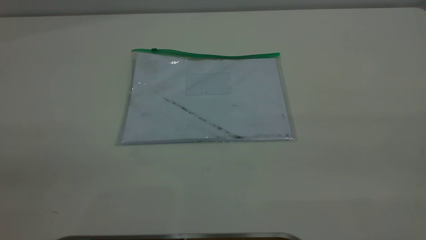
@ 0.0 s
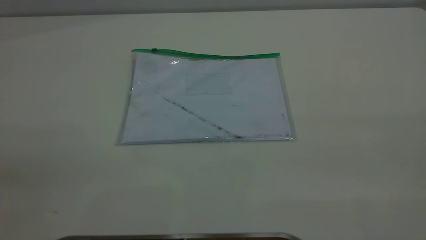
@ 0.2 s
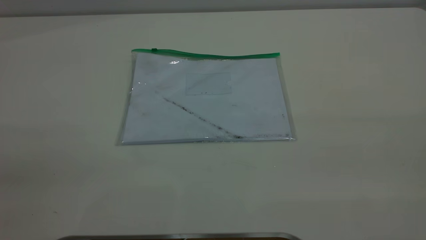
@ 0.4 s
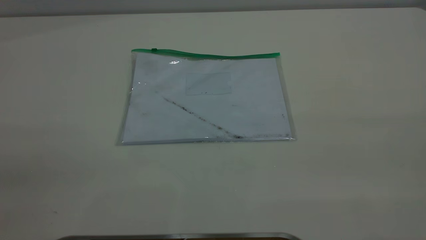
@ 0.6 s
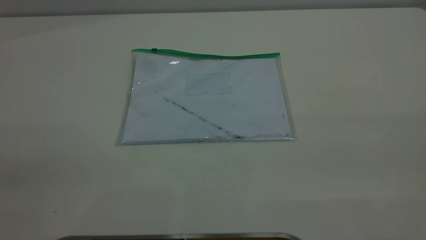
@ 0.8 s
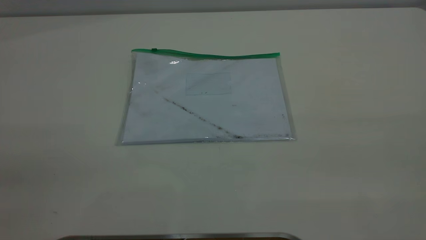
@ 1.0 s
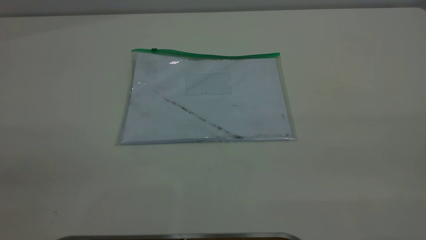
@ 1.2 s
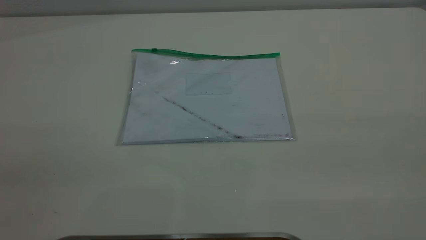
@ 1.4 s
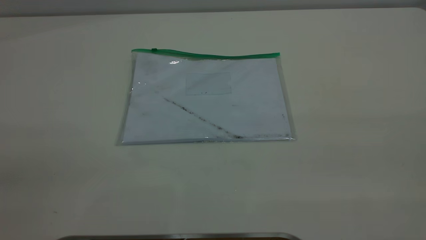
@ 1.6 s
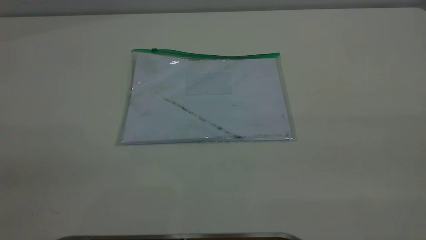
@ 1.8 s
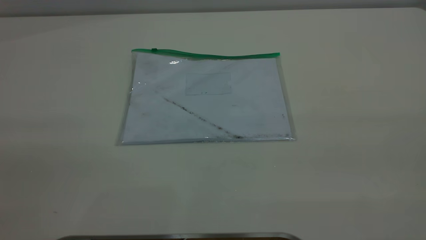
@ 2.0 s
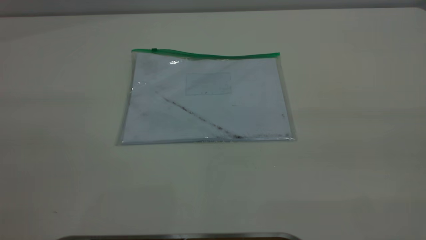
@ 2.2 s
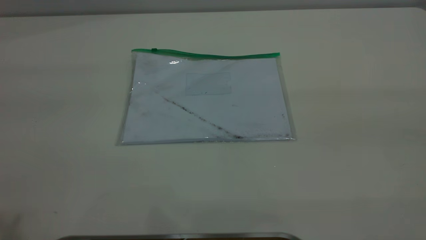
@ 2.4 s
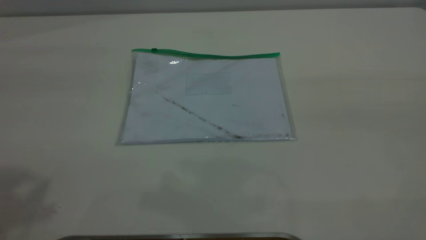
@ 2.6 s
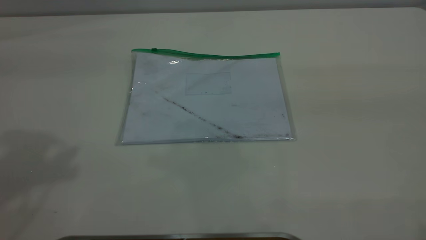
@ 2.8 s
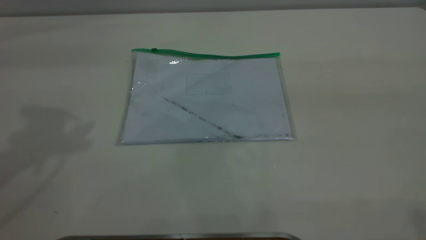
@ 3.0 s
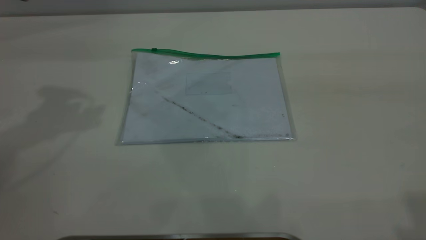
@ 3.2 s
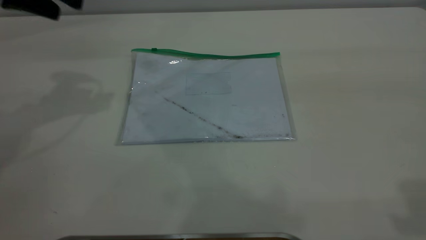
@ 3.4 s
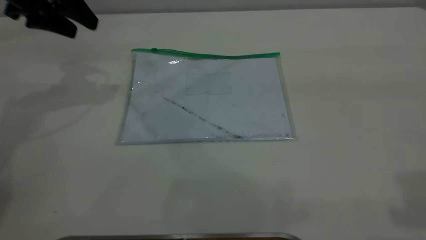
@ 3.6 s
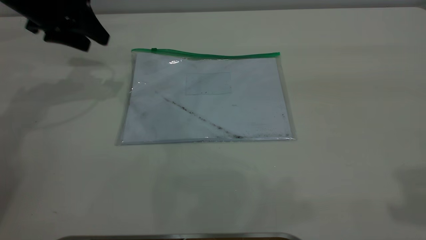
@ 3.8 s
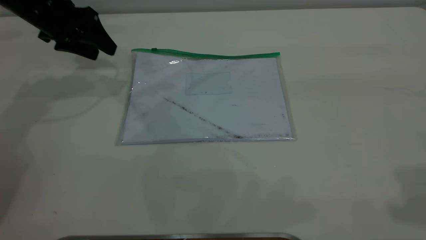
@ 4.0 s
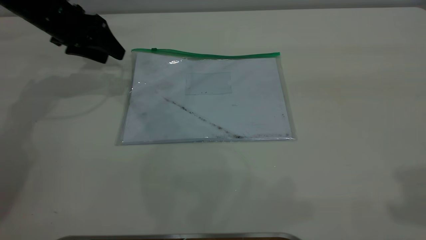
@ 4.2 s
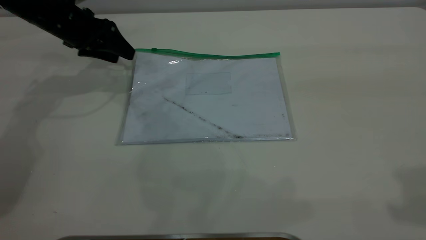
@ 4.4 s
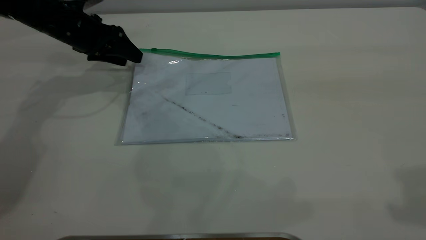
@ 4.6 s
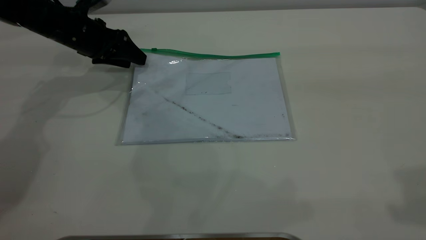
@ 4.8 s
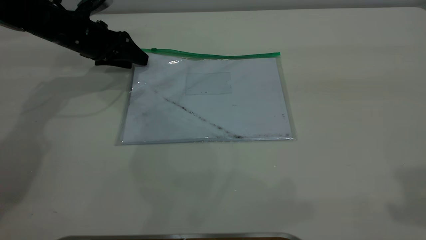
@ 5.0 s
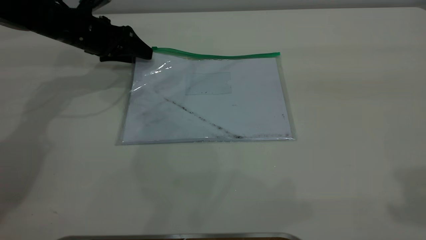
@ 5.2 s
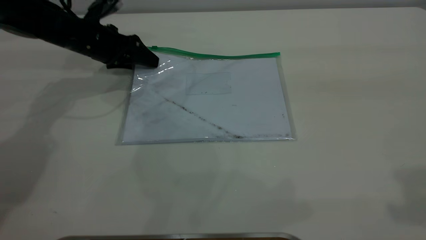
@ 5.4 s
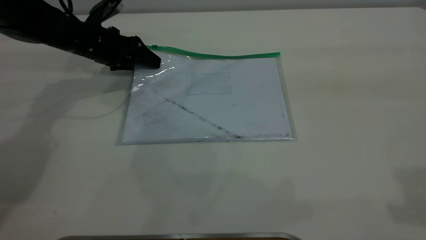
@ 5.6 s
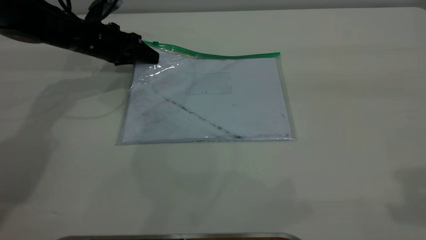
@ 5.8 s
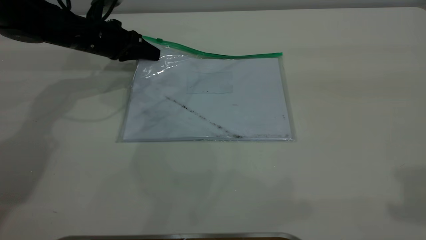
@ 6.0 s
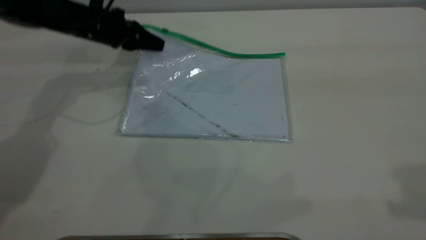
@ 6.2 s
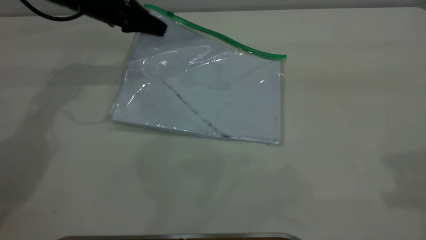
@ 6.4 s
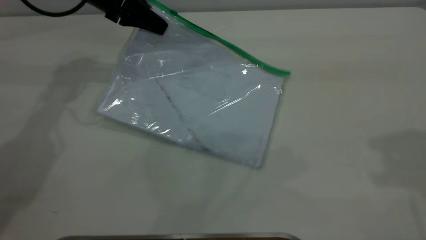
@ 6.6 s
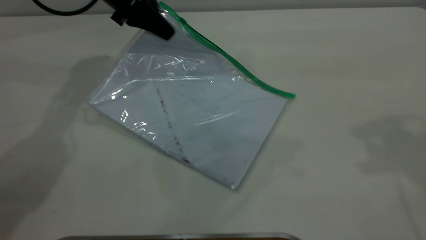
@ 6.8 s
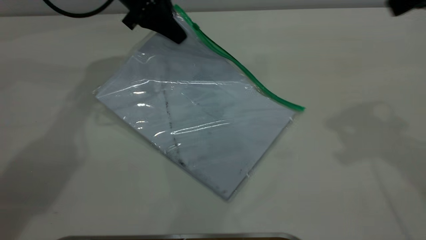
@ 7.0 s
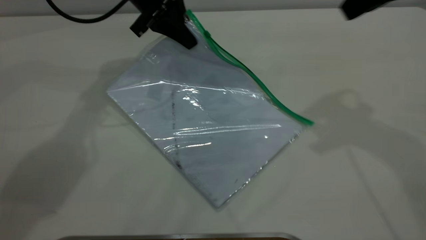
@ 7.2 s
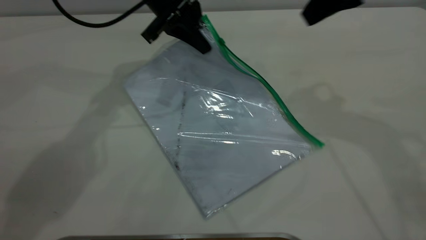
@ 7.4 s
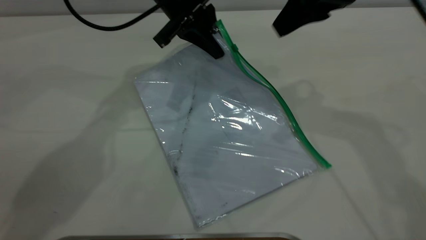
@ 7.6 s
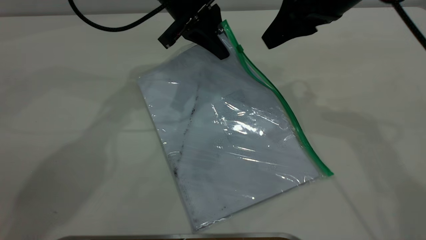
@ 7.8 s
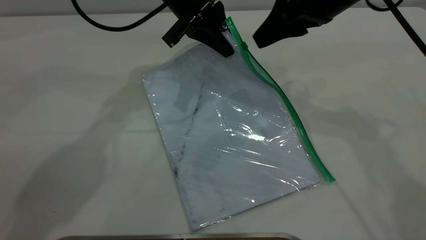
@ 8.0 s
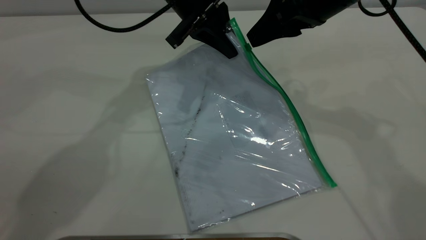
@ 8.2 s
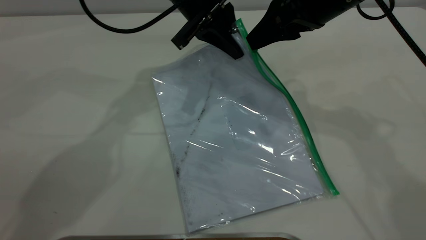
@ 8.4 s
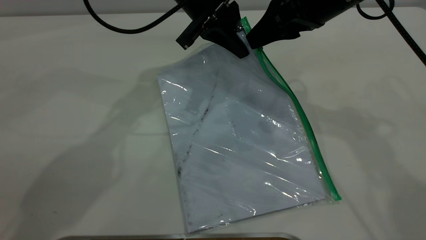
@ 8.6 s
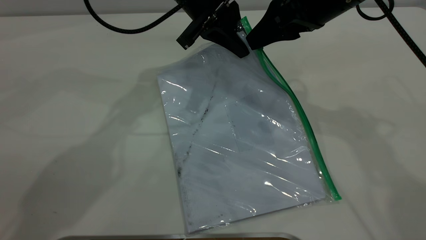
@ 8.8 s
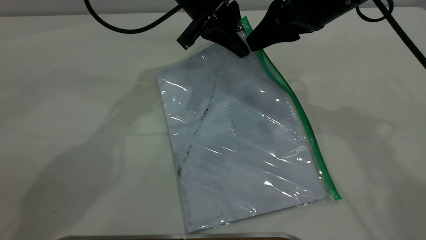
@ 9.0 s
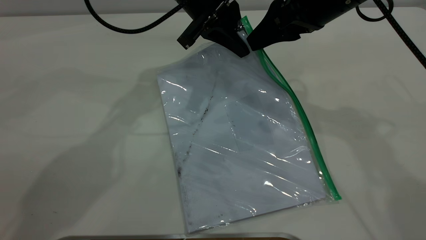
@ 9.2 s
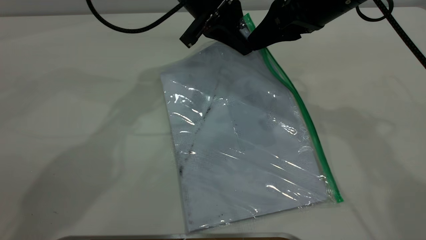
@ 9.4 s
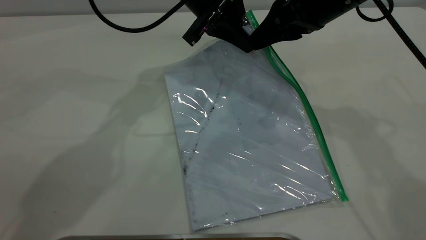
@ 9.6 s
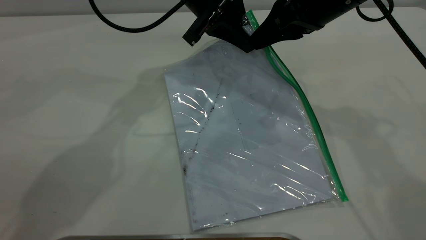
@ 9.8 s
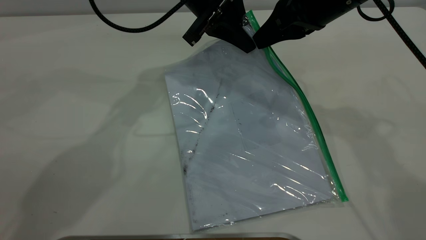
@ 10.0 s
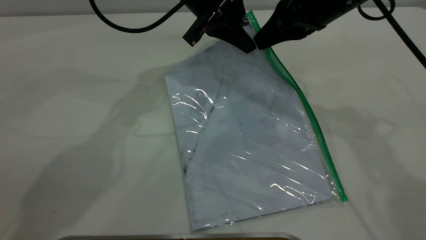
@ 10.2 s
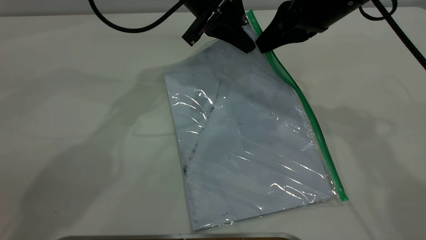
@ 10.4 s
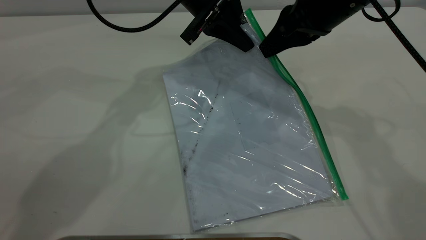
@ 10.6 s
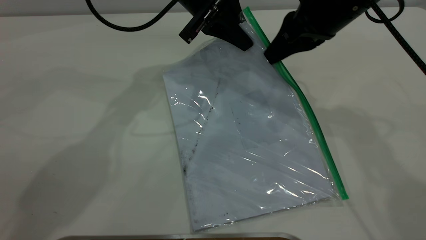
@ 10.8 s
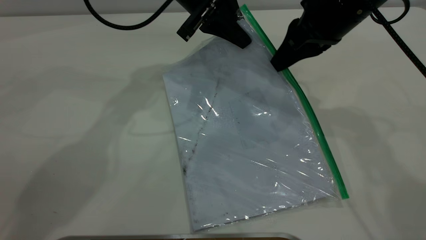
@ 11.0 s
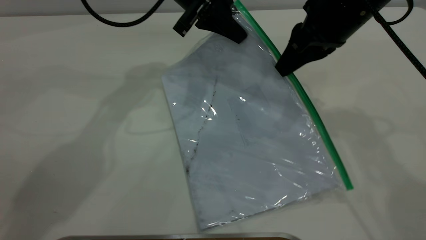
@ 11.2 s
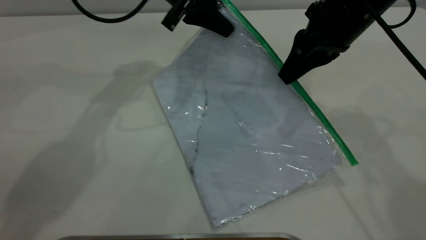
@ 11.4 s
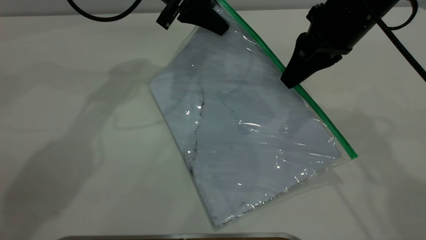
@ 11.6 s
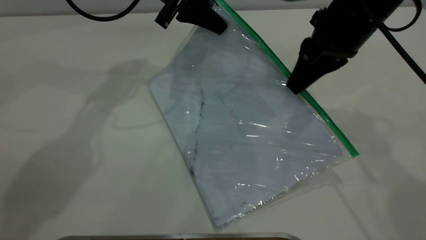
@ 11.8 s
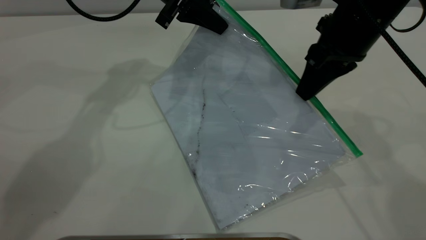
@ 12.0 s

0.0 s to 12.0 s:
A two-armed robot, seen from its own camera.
Step, 0.0 to 6.2 s: Pick up the transparent plastic bag with the left gripper.
0.0 to 1.6 s: Both grippers stay about where they are.
3.0 to 4.4 s: The left gripper shifts roughly 30 cm downward and forward.
4.4 to 6.0 s: The left gripper closes.
6.0 to 7.6 s: The left gripper is displaced to the right and upward by about 20 cm; the right gripper heads forward, downward and to the left, covering about 25 cm.
7.6 to 9.0 s: There are only small adjustments of the grippers.
9.0 to 10.4 s: The right gripper closes its fingers.
10.4 to 12.0 s: The left gripper shifts roughly 5 cm to the left.

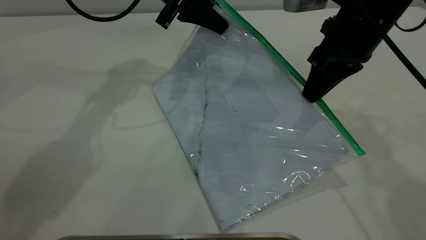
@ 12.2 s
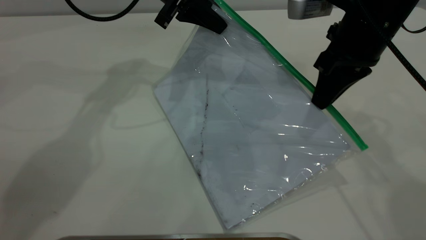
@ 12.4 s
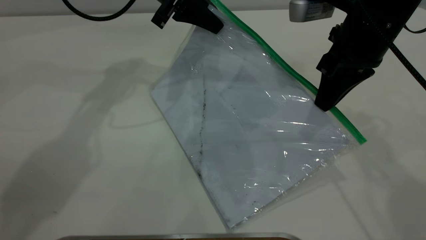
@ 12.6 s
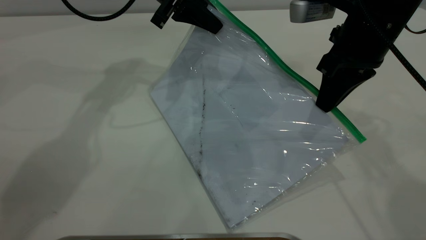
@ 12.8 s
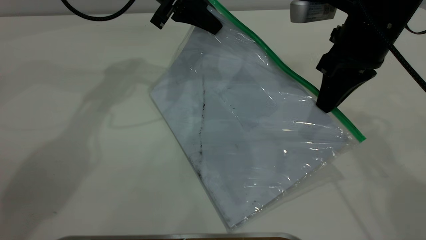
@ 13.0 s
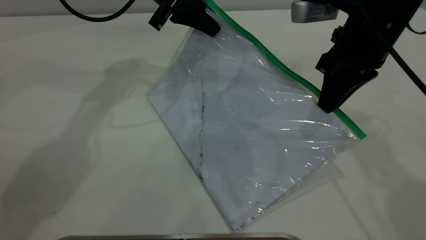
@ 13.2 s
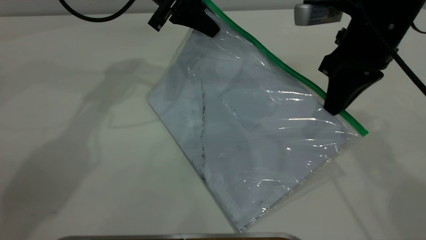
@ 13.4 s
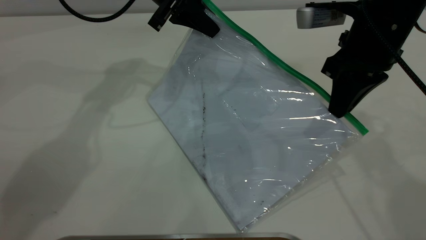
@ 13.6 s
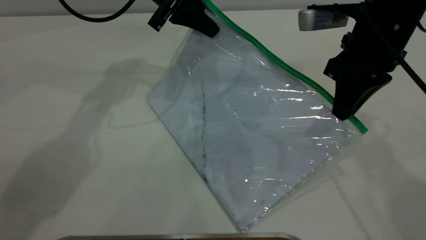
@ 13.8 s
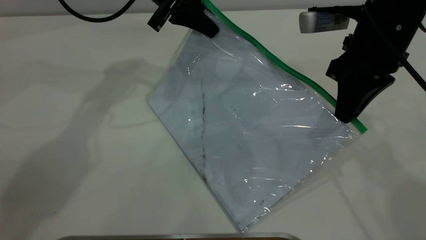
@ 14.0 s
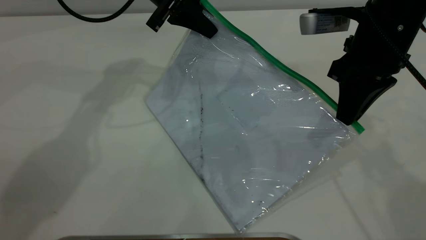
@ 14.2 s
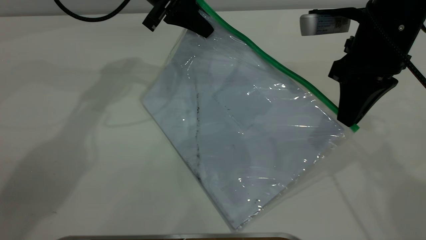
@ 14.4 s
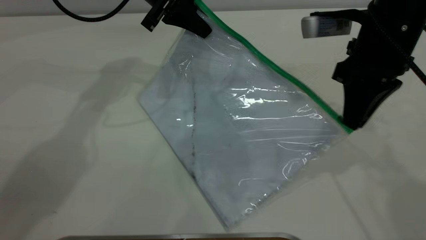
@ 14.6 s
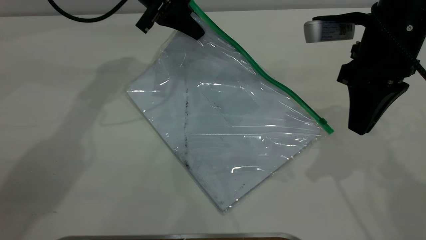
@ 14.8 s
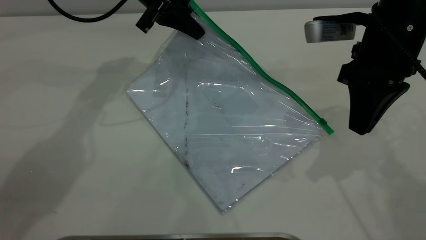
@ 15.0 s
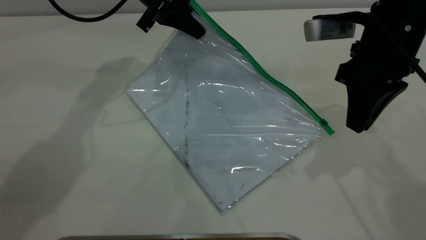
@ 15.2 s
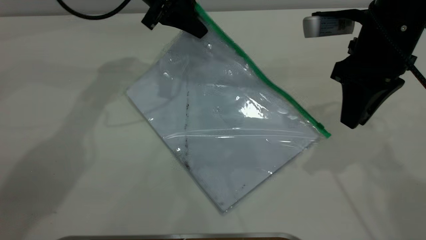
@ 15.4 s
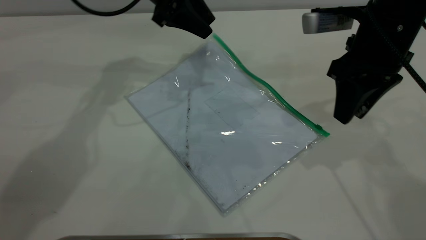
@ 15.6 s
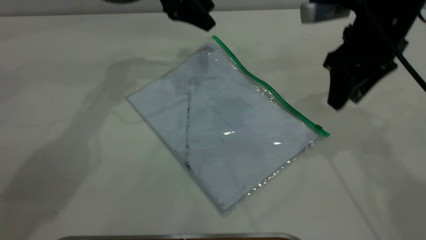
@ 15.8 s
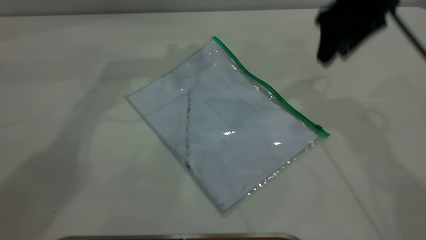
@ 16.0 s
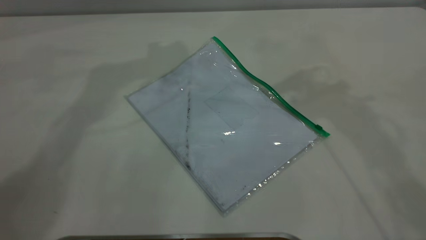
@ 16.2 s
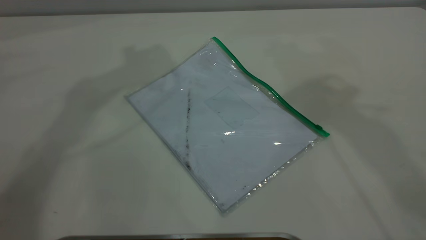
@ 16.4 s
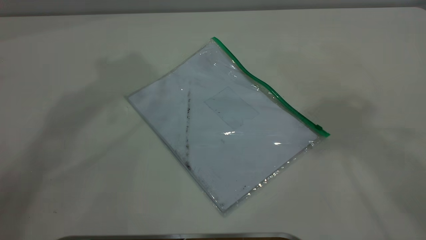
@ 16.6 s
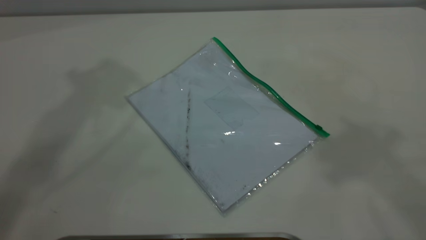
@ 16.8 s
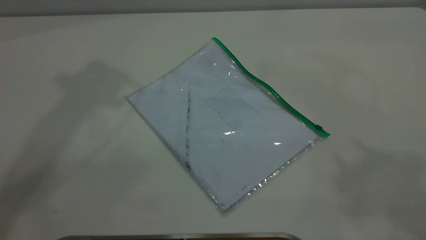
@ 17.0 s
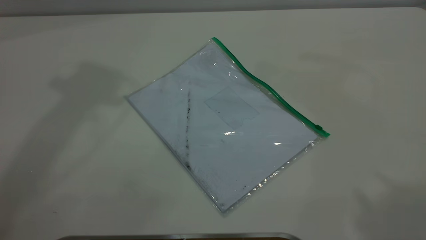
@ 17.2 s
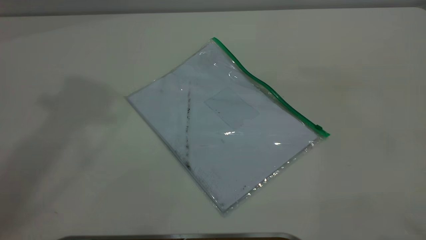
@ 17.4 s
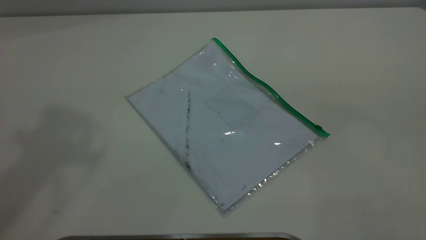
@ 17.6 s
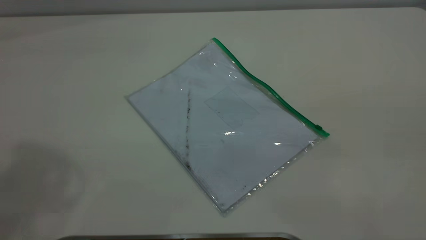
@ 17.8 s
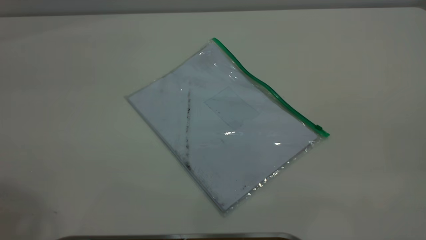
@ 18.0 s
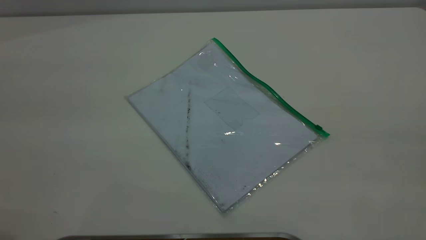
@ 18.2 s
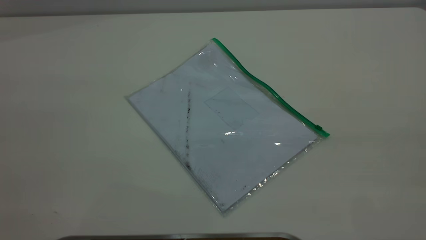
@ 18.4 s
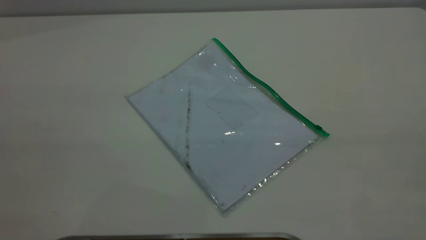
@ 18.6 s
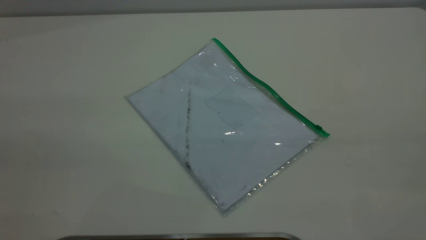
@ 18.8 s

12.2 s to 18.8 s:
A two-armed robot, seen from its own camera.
Step, 12.2 to 14.8 s: Pulling up the zipper on the transparent plastic bag with the right gripper to close it.
Step, 15.2 to 15.8 s: Place the transparent plastic bag.
12.2 to 13.8 s: The grippers move only a little.
13.8 to 15.4 s: The right gripper opens its fingers.
15.4 to 17.2 s: The left gripper shifts roughly 35 cm upward, and opens its fingers. Meanwhile the right gripper is displaced upward and backward by roughly 40 cm, and opens.
